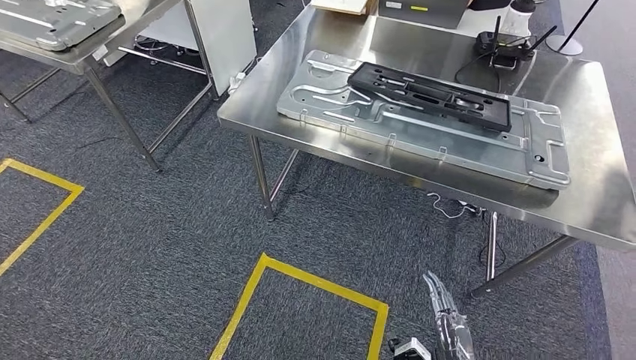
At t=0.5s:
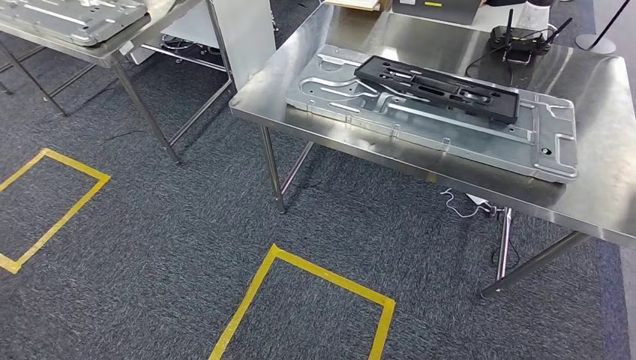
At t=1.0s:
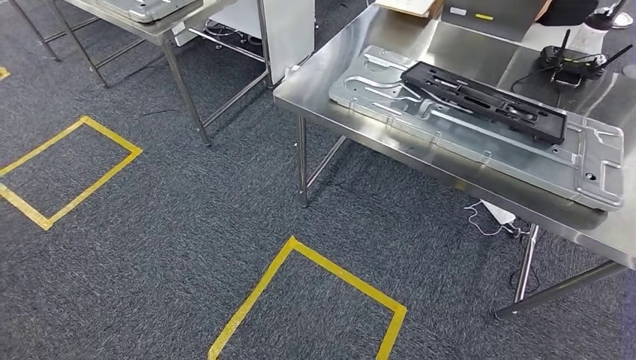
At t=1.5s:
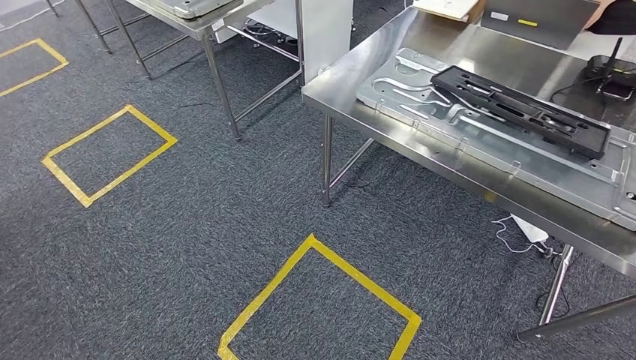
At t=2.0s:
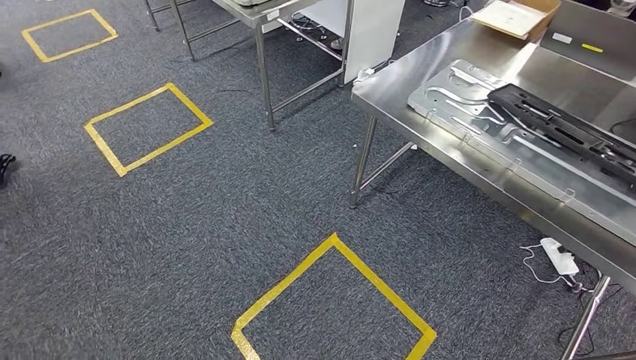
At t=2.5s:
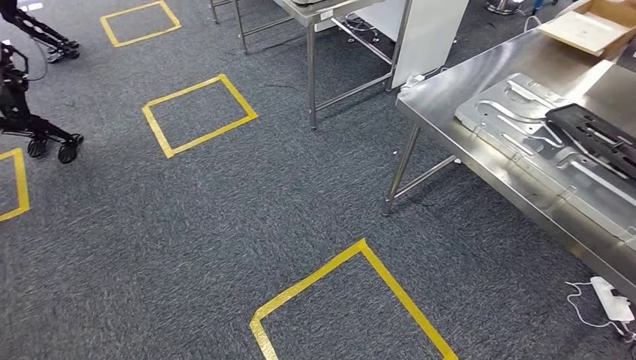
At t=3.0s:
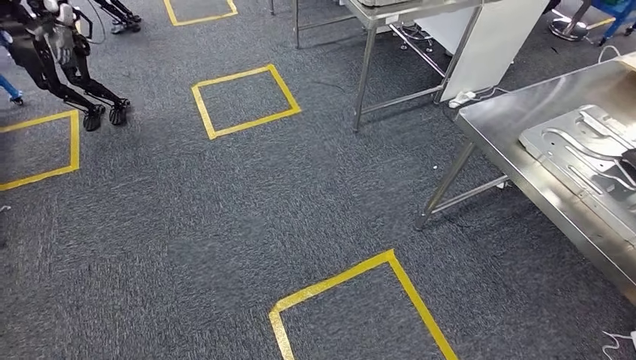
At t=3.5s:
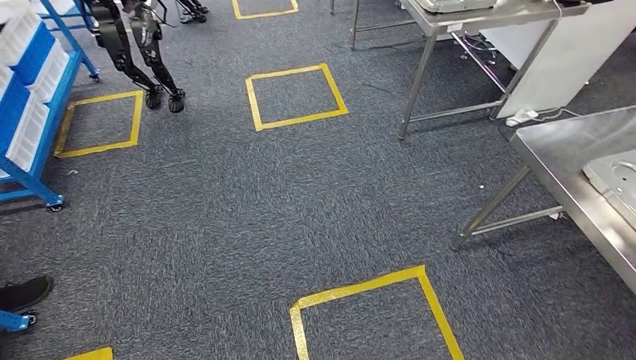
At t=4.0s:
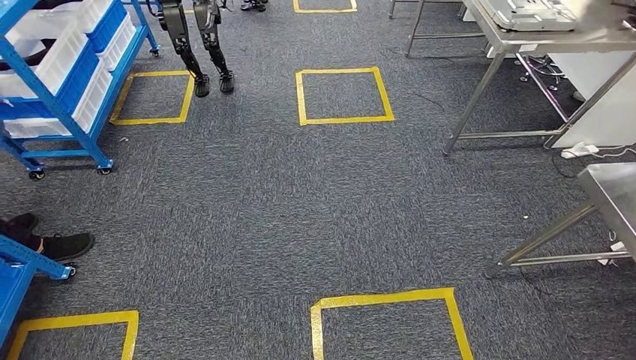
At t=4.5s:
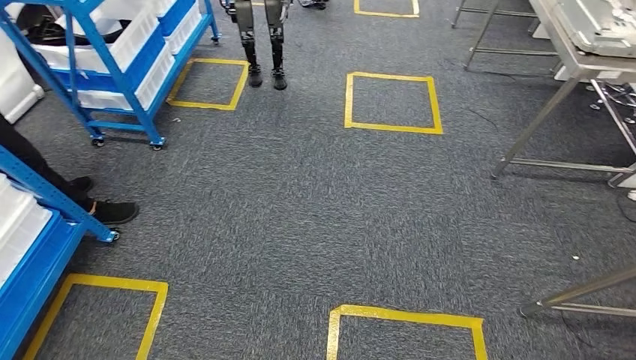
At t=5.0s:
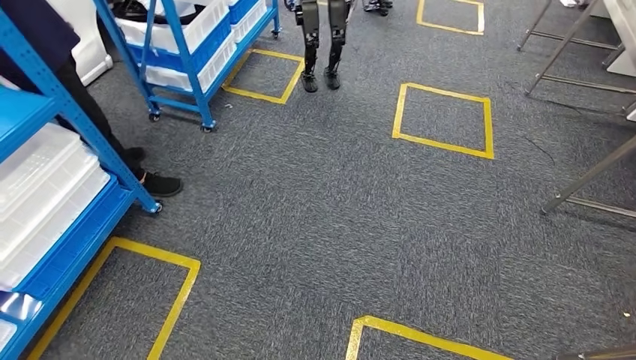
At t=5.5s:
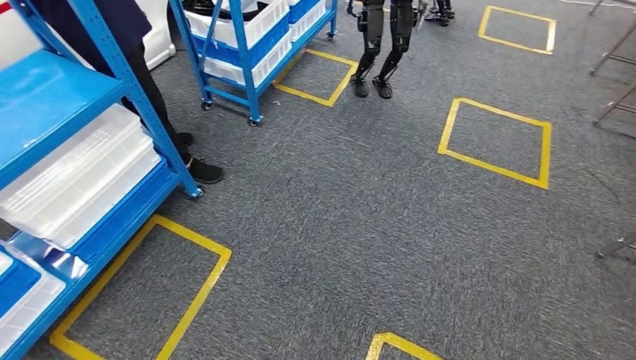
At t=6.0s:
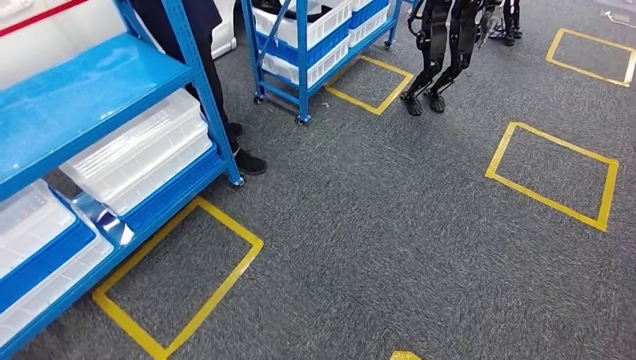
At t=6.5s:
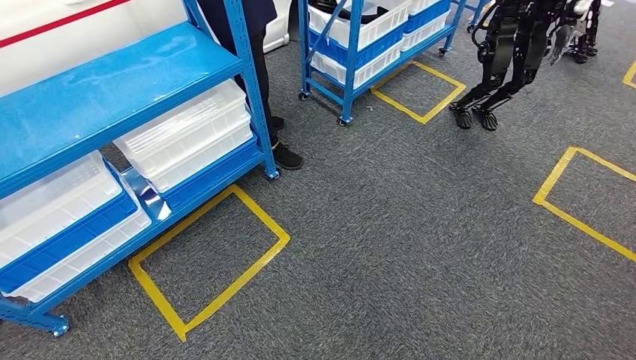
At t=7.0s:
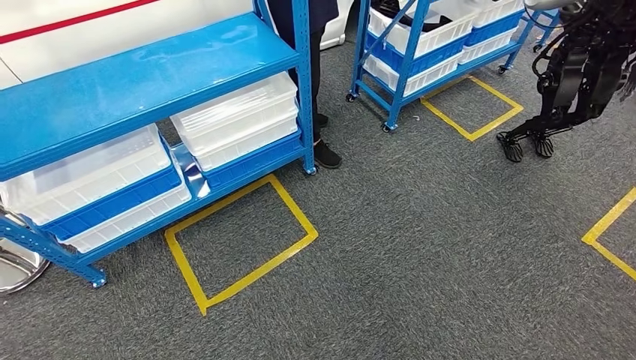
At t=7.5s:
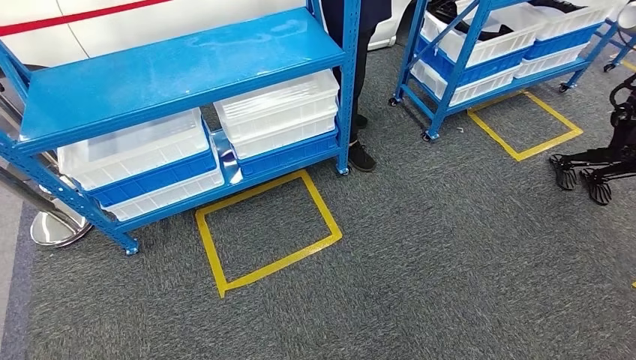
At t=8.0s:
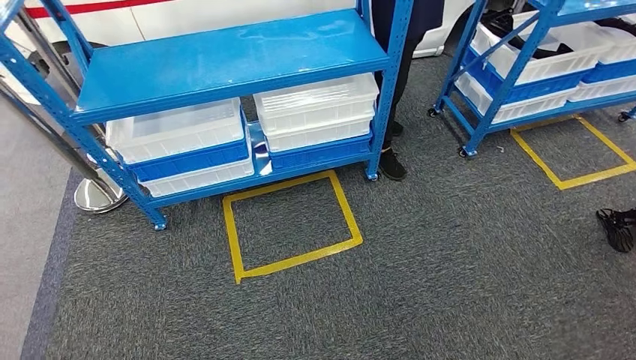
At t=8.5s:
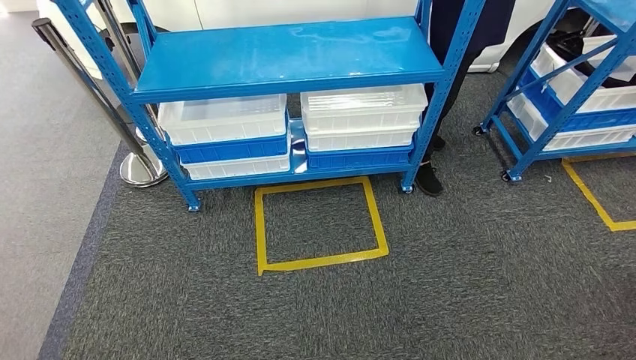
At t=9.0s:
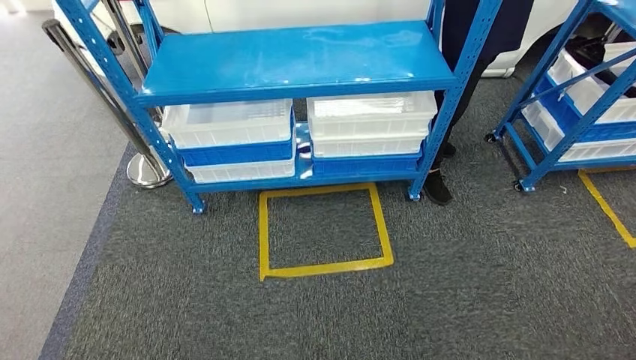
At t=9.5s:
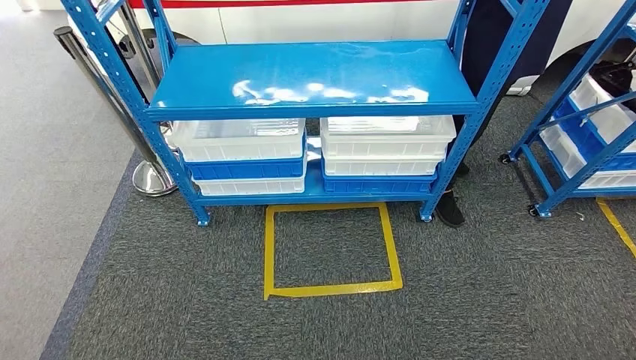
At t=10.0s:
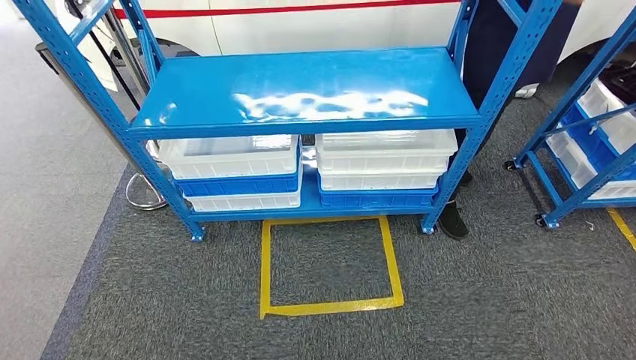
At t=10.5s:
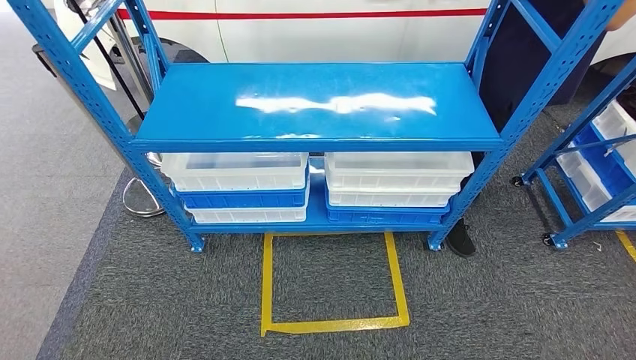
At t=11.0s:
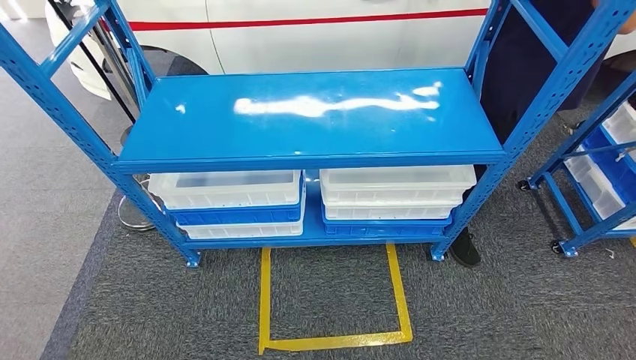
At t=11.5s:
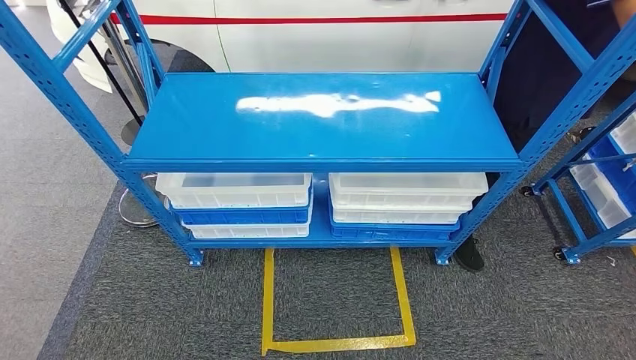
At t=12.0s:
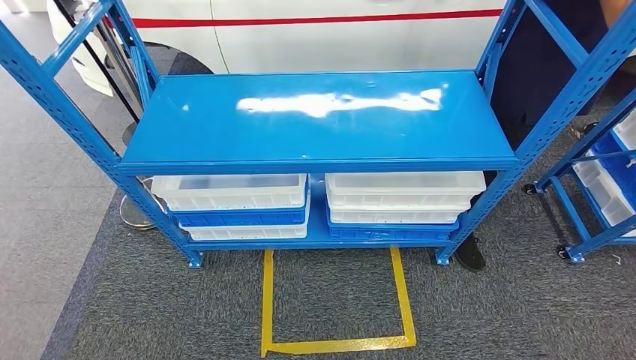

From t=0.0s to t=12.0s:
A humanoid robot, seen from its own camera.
Step, from t=1.5s to t=12.0s: Move to the initial position of the shelf.
